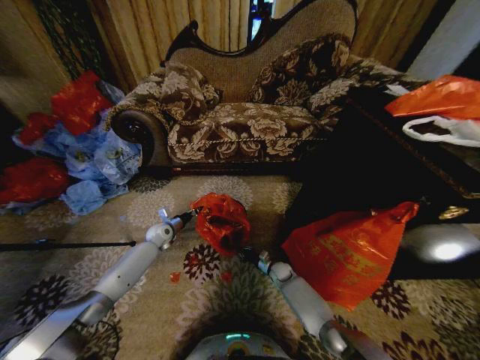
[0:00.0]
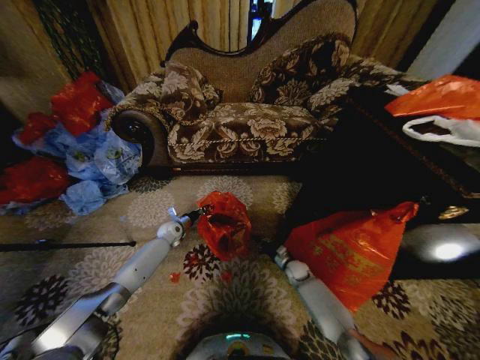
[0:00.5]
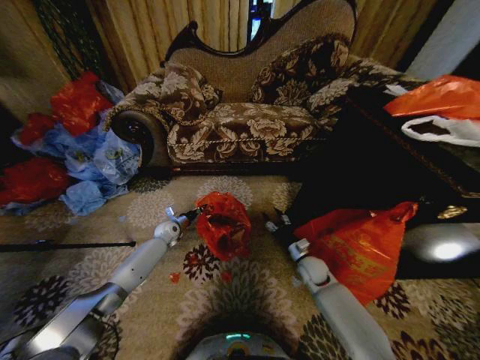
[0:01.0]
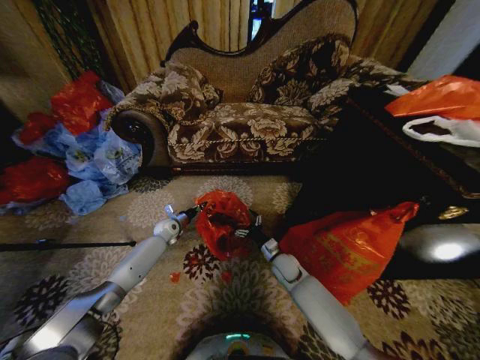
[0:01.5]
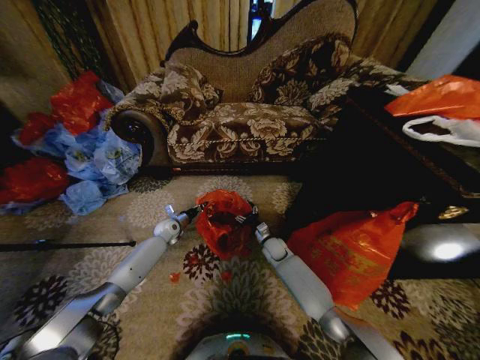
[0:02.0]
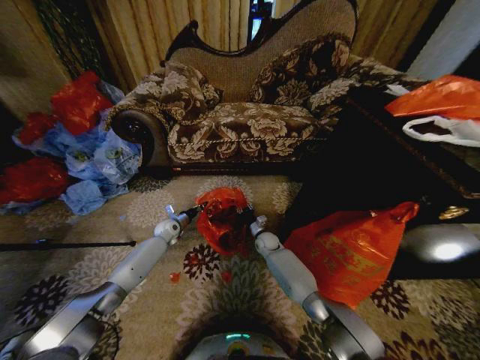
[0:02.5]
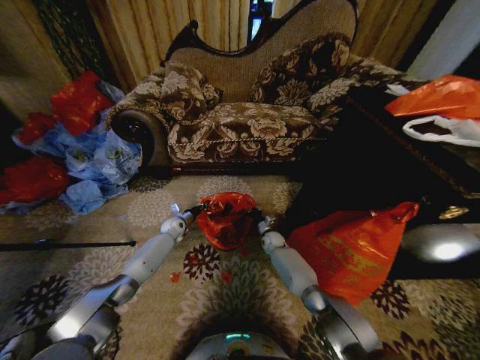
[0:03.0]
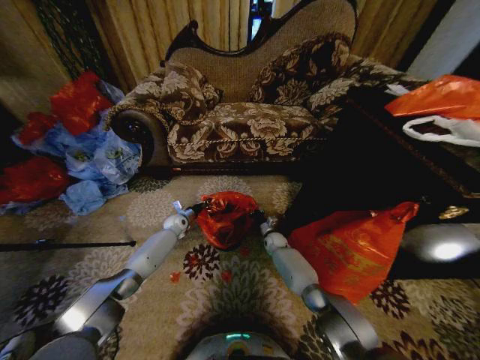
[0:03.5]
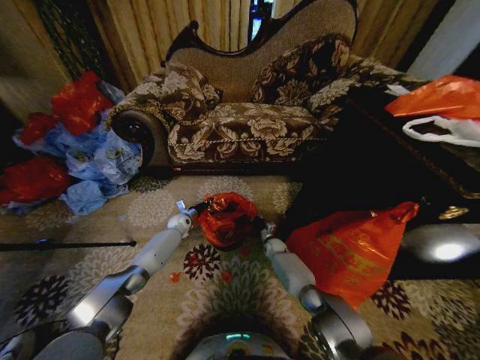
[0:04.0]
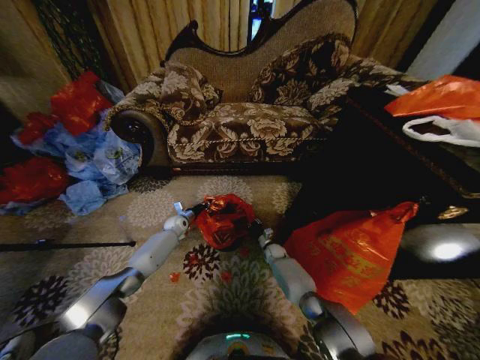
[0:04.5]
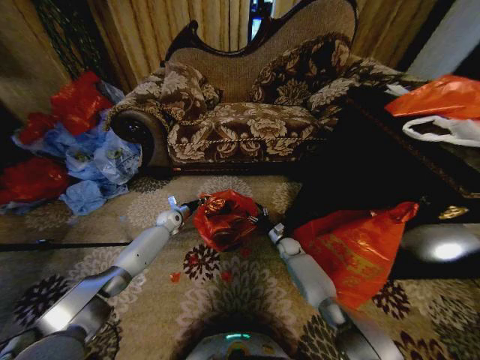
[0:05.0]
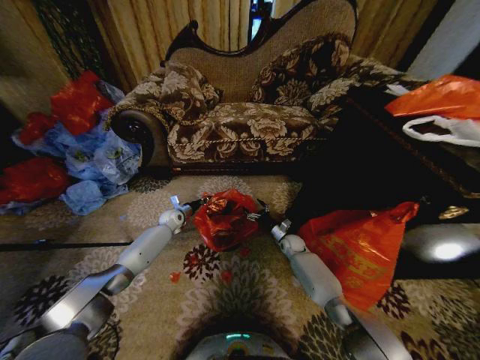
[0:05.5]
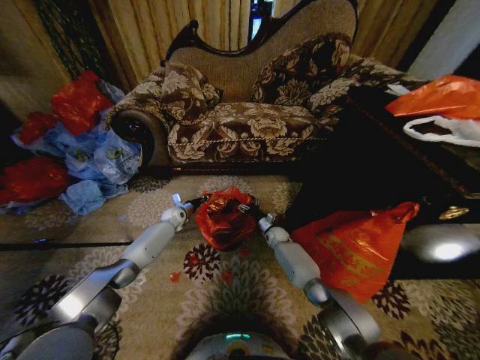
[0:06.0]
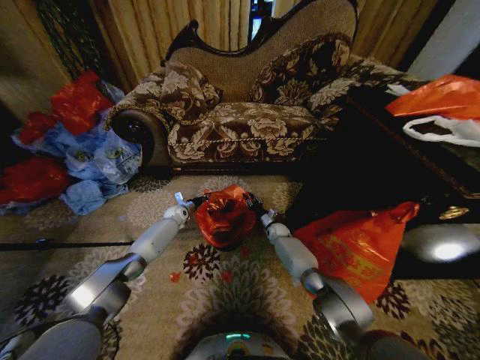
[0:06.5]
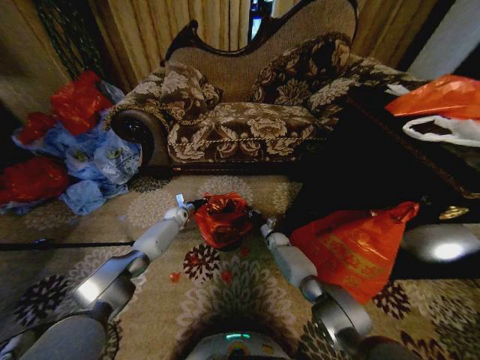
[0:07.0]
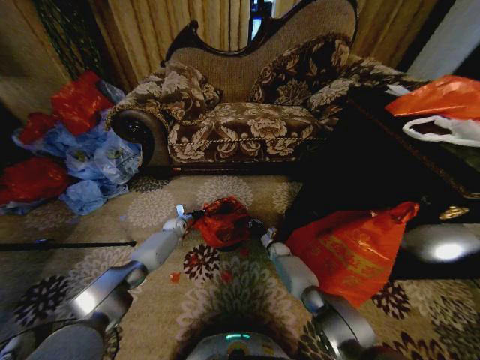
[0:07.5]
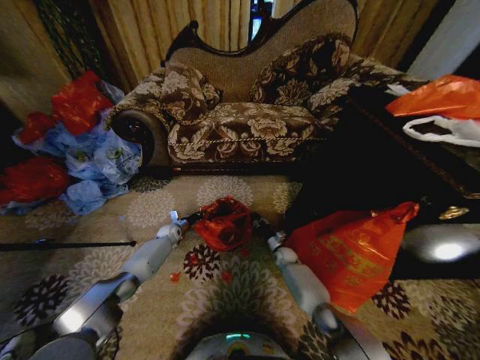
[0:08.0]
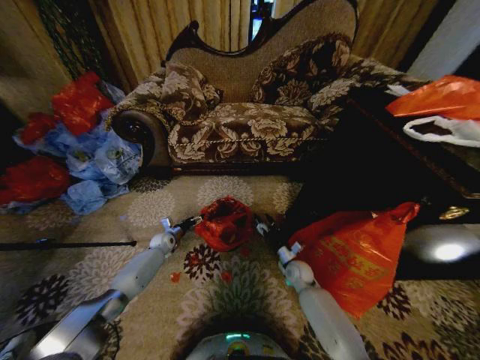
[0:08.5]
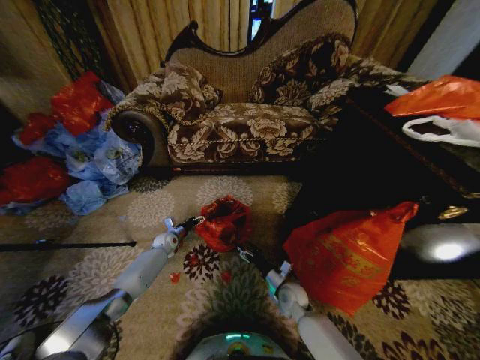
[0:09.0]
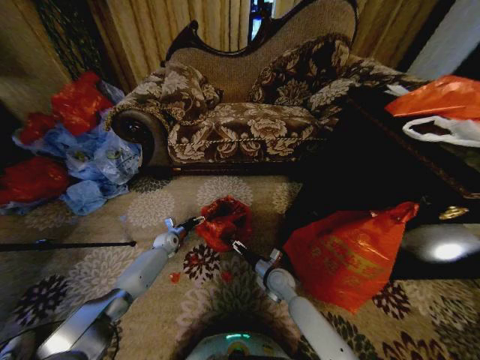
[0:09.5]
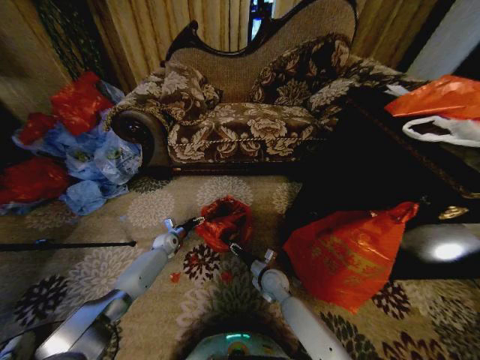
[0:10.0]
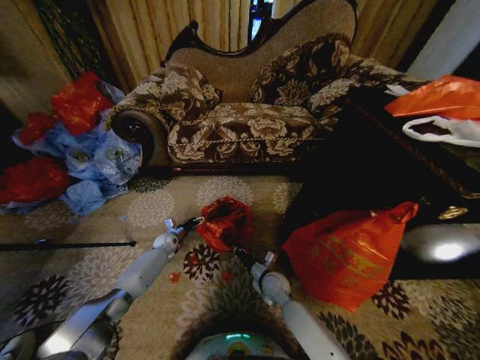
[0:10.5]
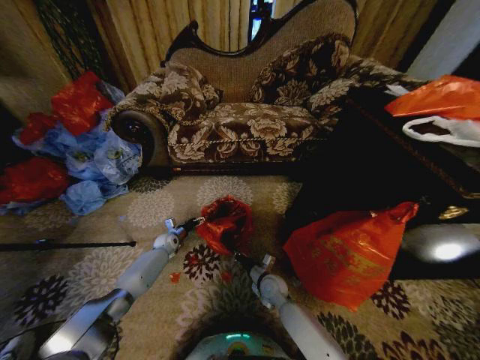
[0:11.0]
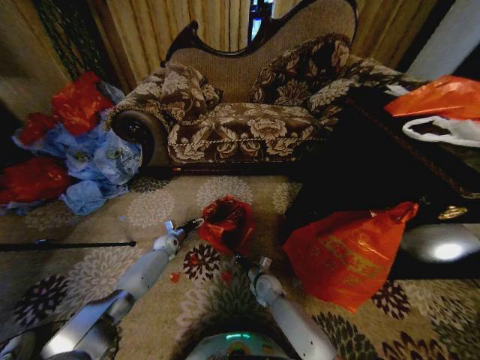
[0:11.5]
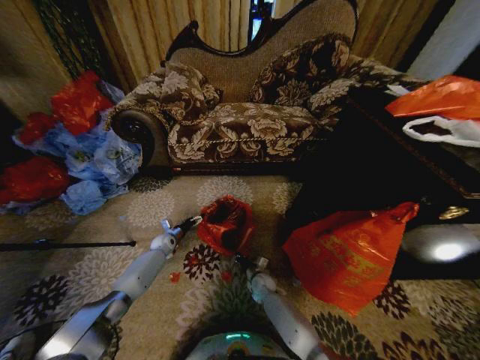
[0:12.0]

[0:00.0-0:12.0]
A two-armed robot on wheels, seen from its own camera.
Task of the whole recording: Place a garbage bag over the trash bin.
0:00.0 to 0:02.0: The right gripper goes roughly 10 cm upward, and opens.
0:02.0 to 0:04.0: The left gripper shifts by some 5 cm, while the right gripper travels downward and forward by roughly 10 cm, and closes its fingers.
0:04.0 to 0:06.0: The right gripper is displaced upward by approximately 5 cm, and opens its fingers.
0:06.0 to 0:08.0: The left gripper travels downward by approximately 10 cm; the right gripper heads backward and downward, covering about 10 cm, and closes its fingers.
0:08.0 to 0:10.0: The left gripper opens up, while the right gripper is displaced backward, to the left and upward by some 15 cm, and opens, then closes once more.
0:10.0 to 0:12.0: The right gripper travels downward by some 10 cm, and closes up.

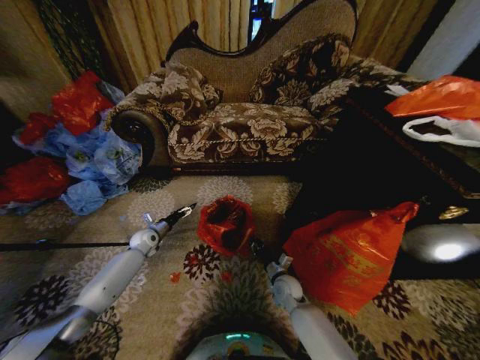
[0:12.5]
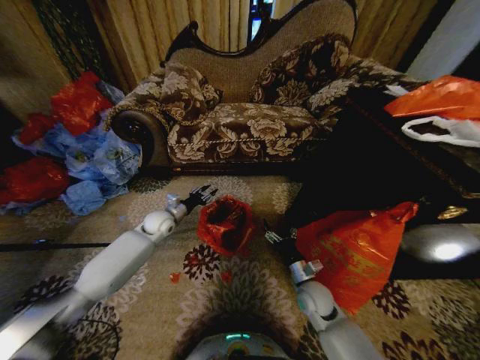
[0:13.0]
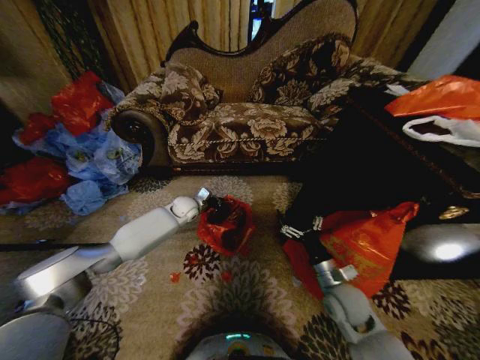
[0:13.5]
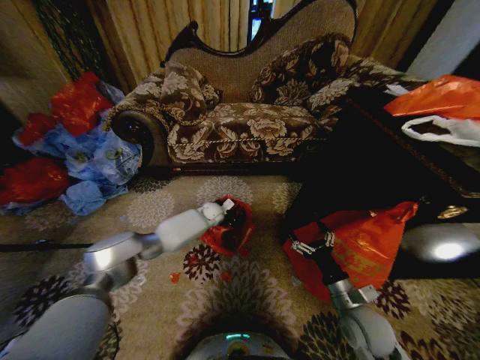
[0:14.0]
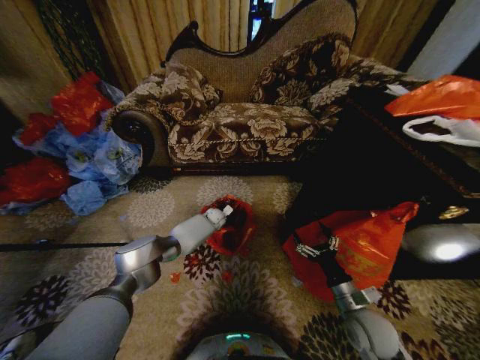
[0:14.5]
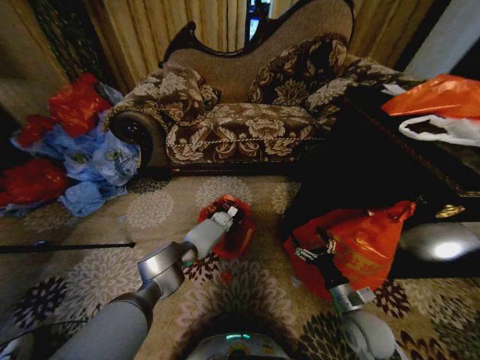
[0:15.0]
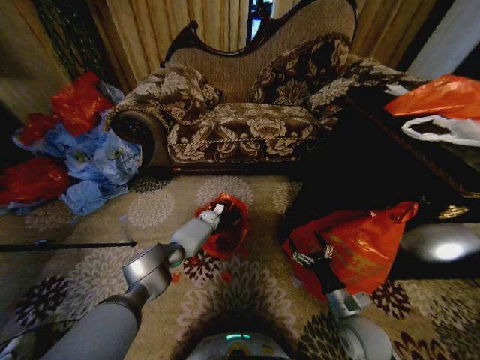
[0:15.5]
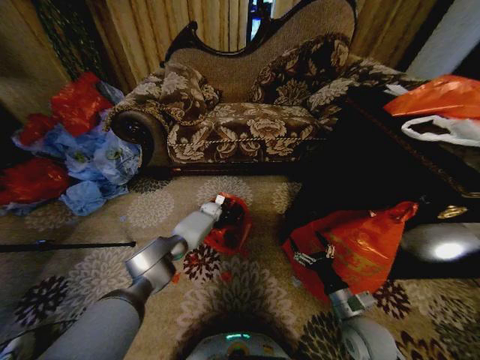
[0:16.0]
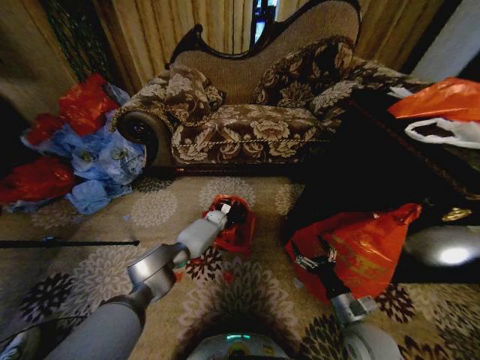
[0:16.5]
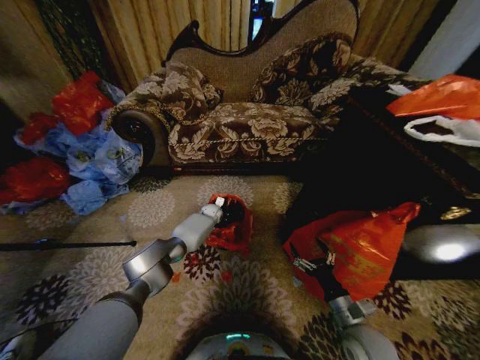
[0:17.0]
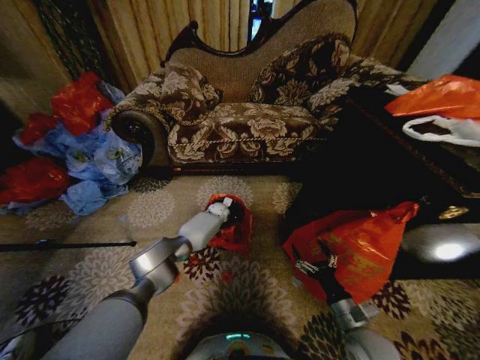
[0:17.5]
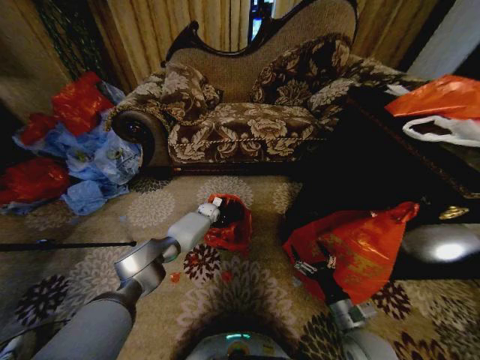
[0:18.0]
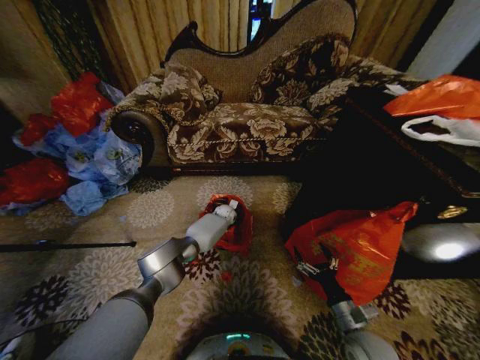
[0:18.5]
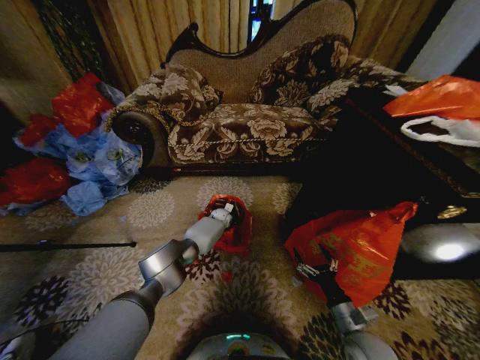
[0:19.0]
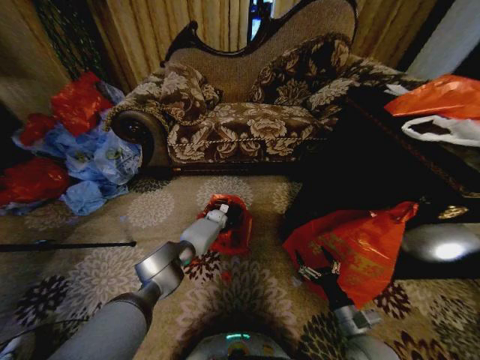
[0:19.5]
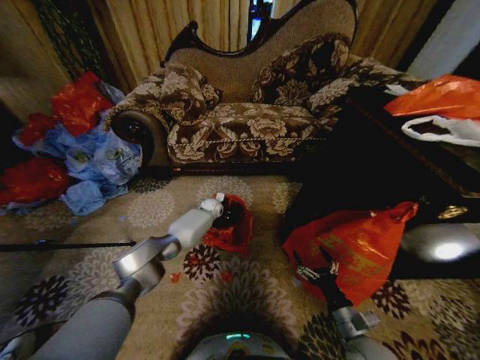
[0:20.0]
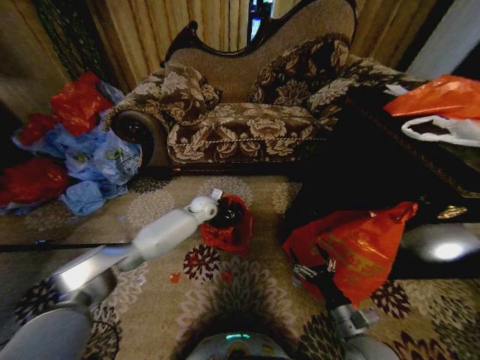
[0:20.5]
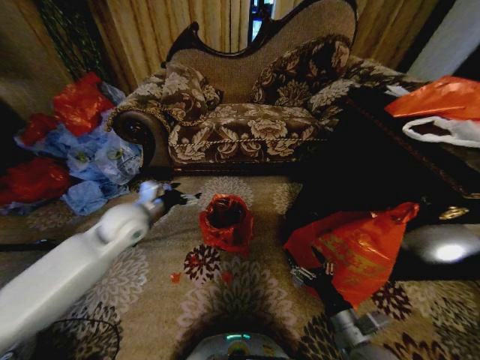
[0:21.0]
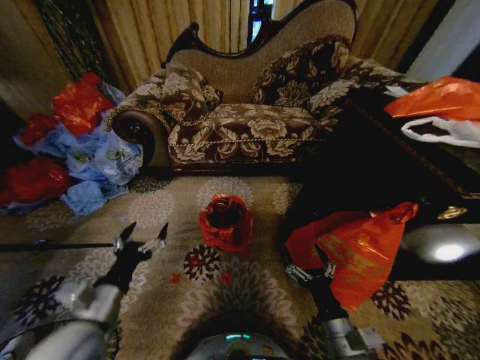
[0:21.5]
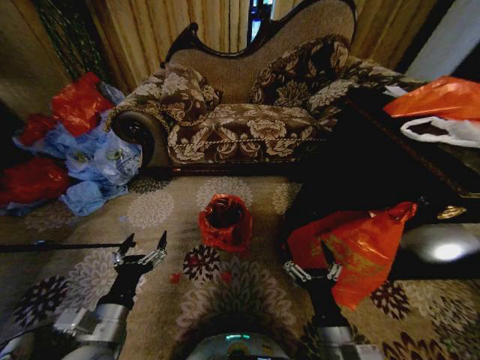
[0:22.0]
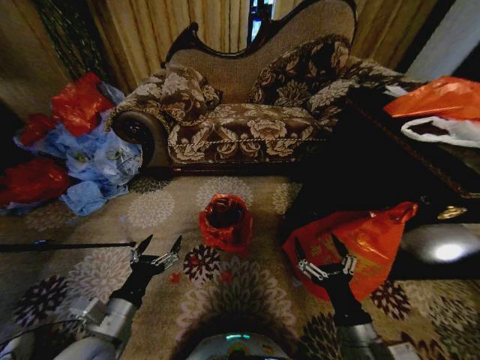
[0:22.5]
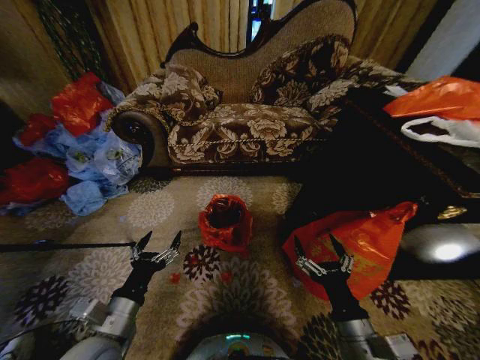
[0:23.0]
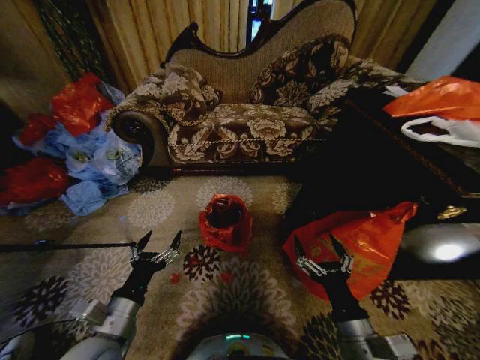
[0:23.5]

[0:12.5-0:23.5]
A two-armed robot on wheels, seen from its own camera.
Task of the whole recording: Place a garbage bag over the trash bin.
0:12.5 to 0:14.5: The left gripper is displaced to the right and forward by about 30 cm, and closes its fingers, while the right gripper travels to the right, backward and upward by approximately 20 cm, and opens.
0:16.0 to 0:18.0: The grippers make only small movements.
0:18.0 to 0:20.0: The left gripper goes to the right and returns, about 10 cm each way.
0:20.0 to 0:21.5: The left gripper goes roughly 50 cm backward, and opens up; the right gripper travels to the left and upward by about 10 cm.
0:21.5 to 0:23.5: There are only small adjustments of the grippers.
